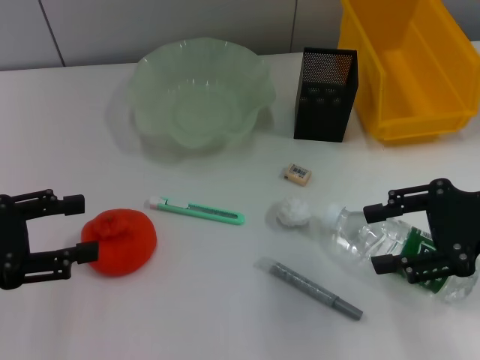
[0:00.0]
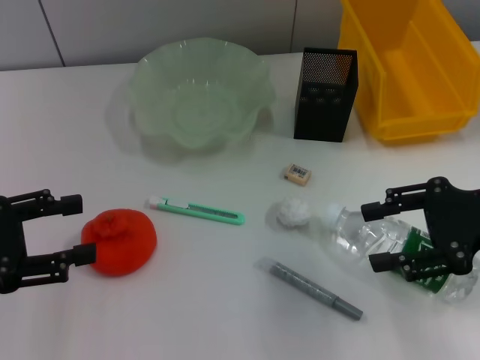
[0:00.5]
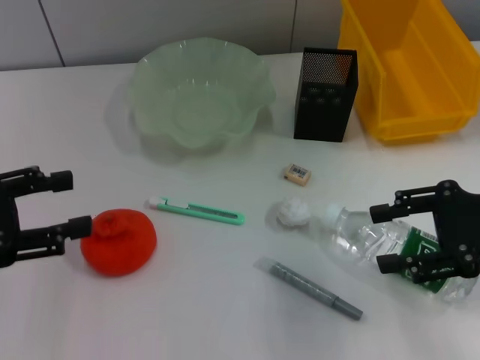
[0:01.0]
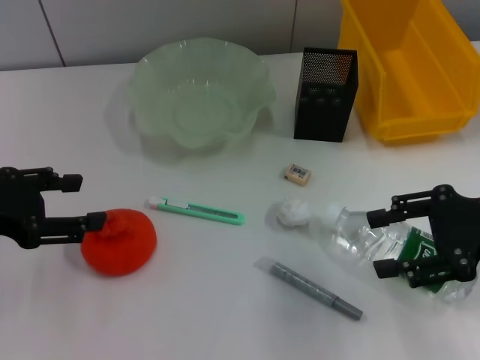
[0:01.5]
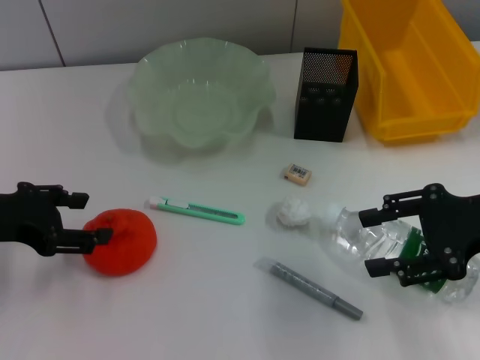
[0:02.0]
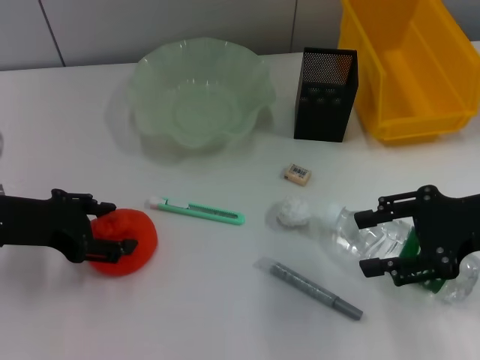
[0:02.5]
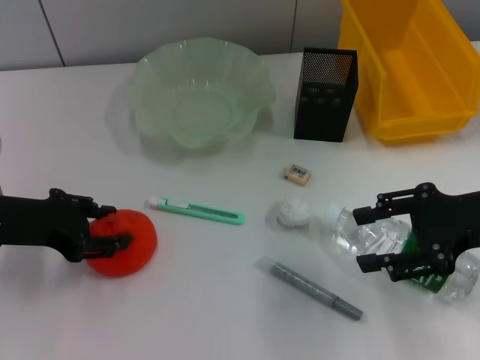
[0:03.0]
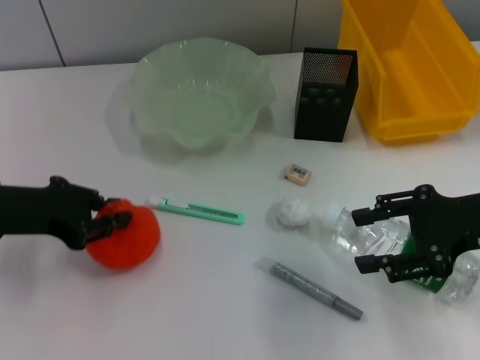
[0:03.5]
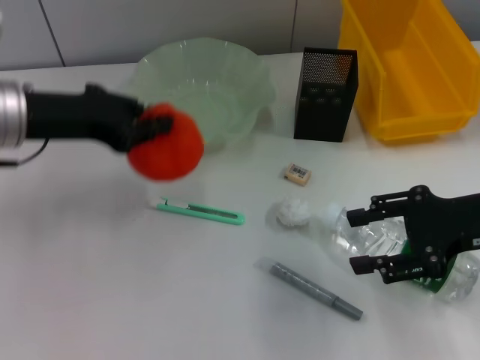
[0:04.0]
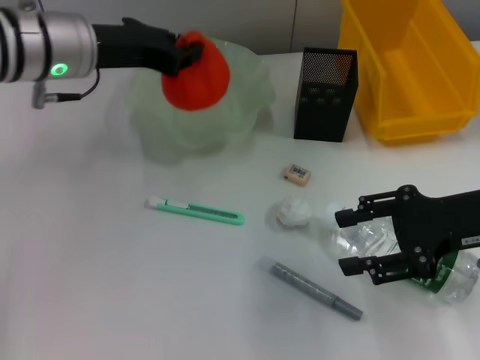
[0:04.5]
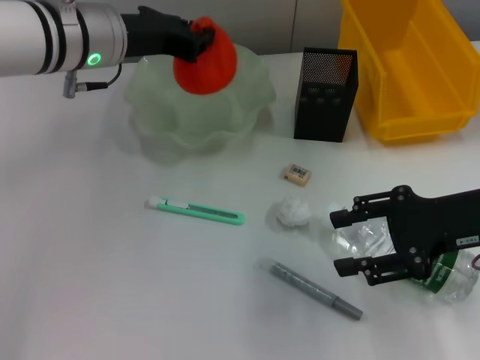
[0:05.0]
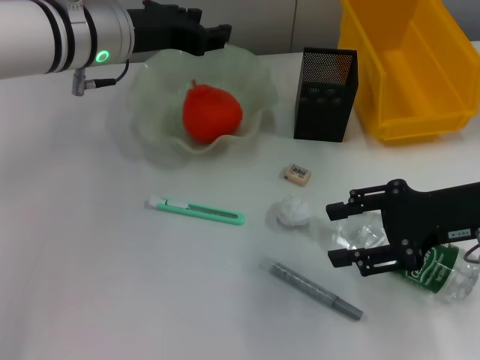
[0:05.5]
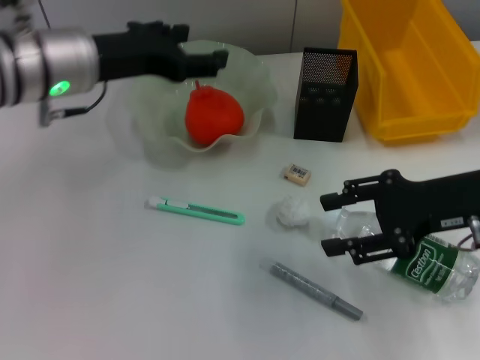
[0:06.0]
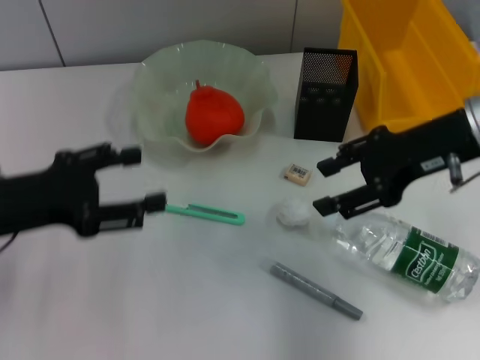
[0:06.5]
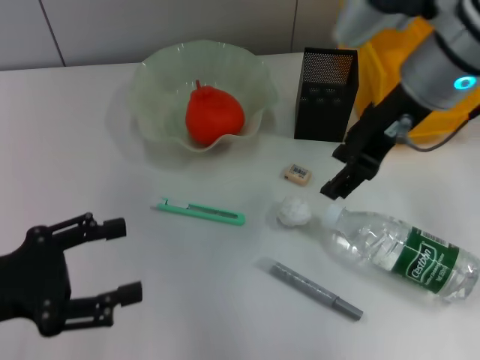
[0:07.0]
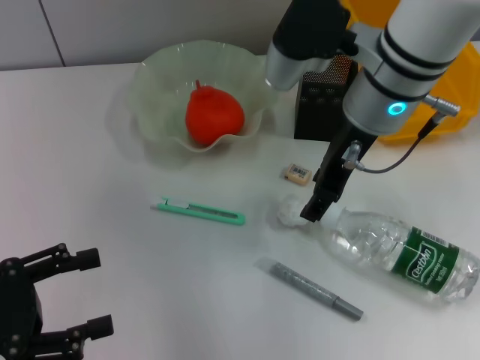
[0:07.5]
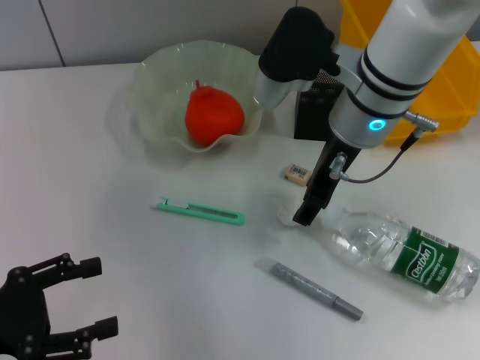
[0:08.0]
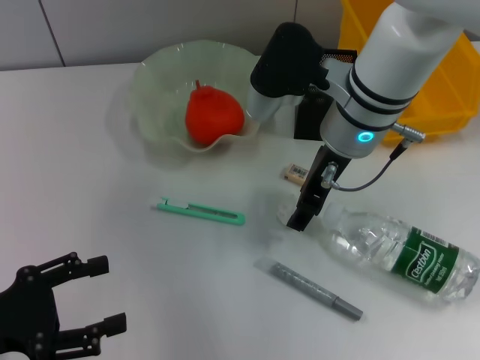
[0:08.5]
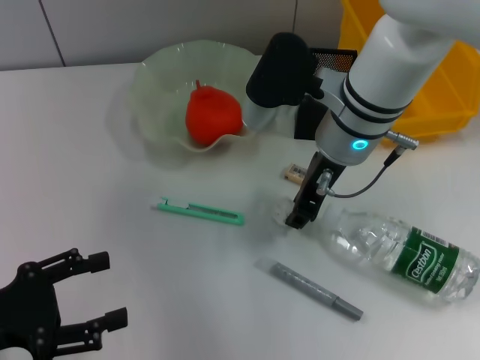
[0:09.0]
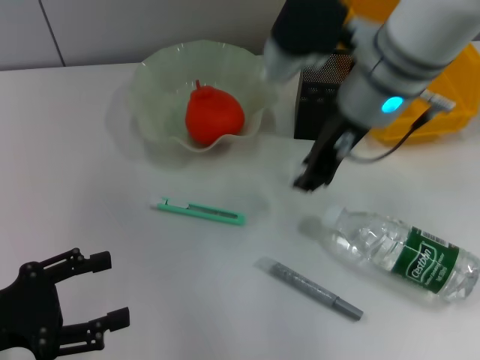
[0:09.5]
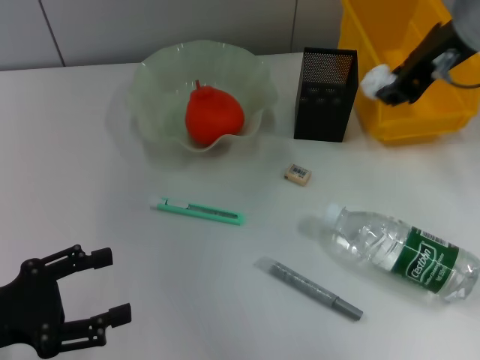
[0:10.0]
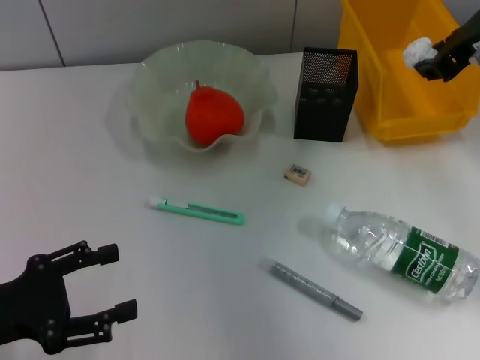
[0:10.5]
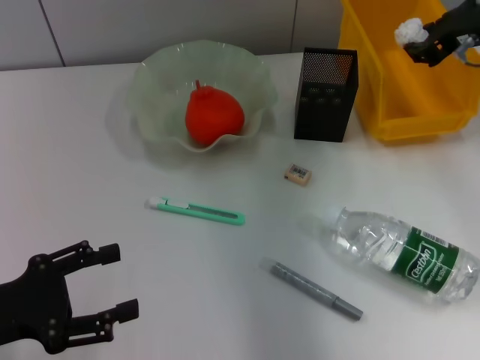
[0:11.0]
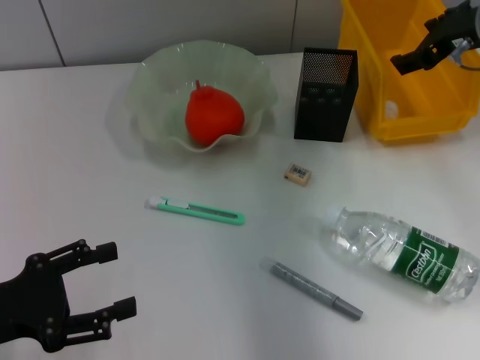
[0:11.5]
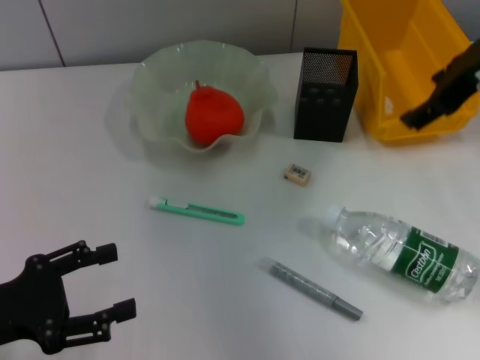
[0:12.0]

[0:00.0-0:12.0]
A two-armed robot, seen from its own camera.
Step, 0.0 to 3.0 s: Grab the orange with the left hand.
Step, 3.5 to 5.5 s: Place the orange into the fruit bowl with the left hand.
Step, 6.0 to 9.0 s: Grab the paper ball with the right hand.
Step, 9.5 to 11.5 s: Place the paper ball into the trash can with the right hand.
0.0 to 2.0 s: The left gripper ends up approximately 5 cm from where it was.
2.0 to 4.0 s: The left gripper shifts roughly 5 cm to the right, and closes.
4.0 to 6.0 s: The left gripper shifts some 5 cm to the right, and opens up.
6.0 to 8.0 s: The right gripper travels to the left and forward by some 20 cm. The left gripper travels backward, to the left and downward by about 25 cm.
8.0 to 10.0 s: The right gripper moves upward and to the right, approximately 10 cm, and closes up.
10.0 to 12.0 s: The right gripper opens its fingers.

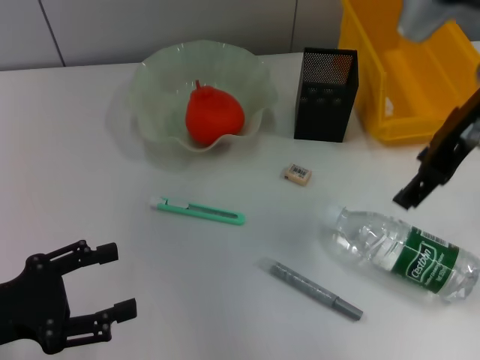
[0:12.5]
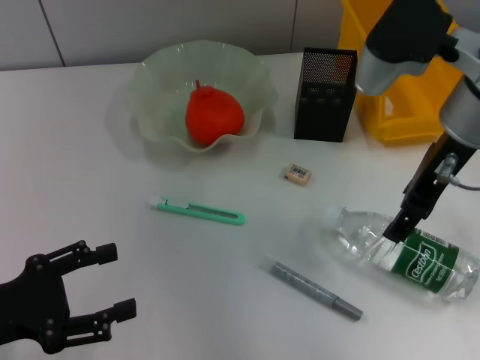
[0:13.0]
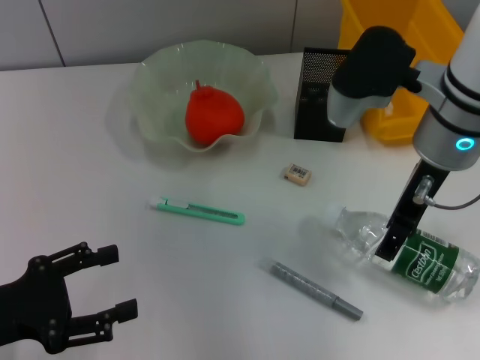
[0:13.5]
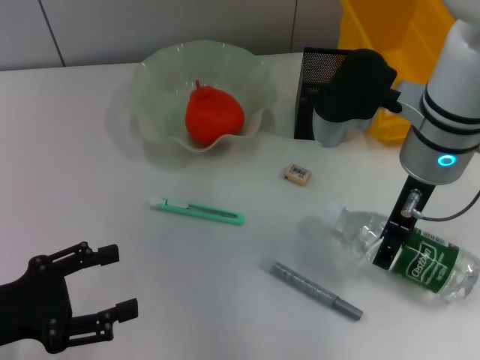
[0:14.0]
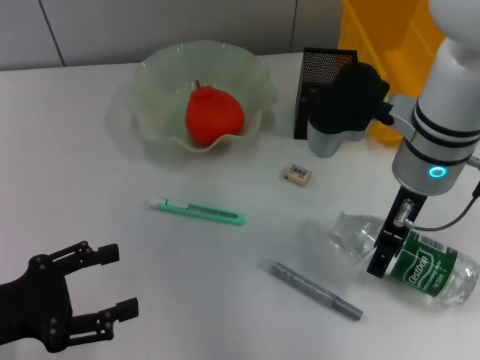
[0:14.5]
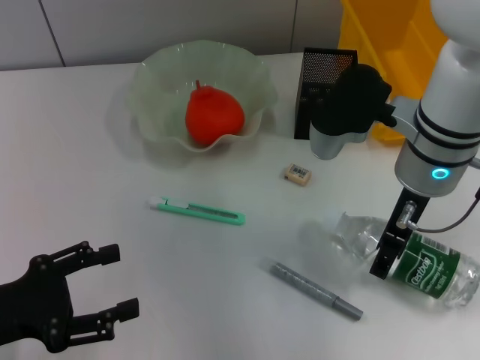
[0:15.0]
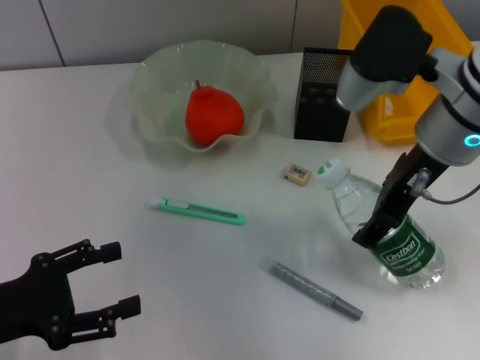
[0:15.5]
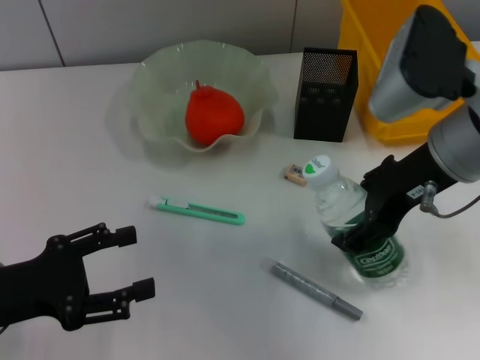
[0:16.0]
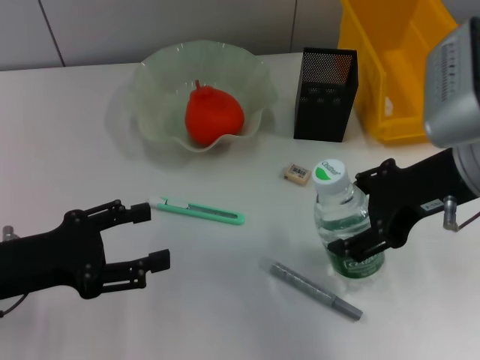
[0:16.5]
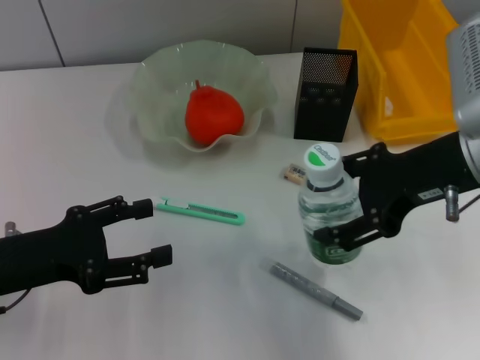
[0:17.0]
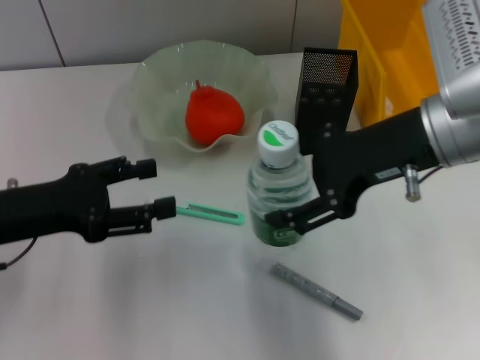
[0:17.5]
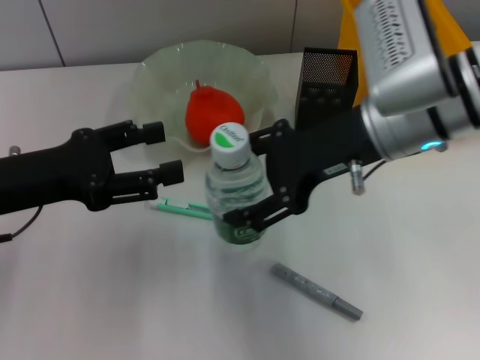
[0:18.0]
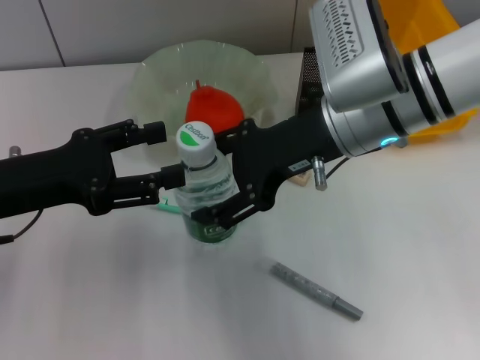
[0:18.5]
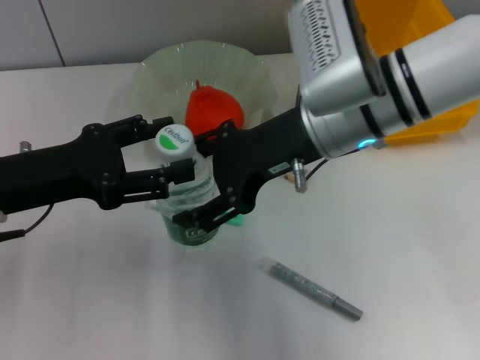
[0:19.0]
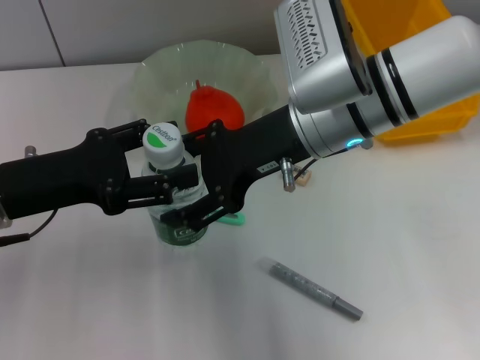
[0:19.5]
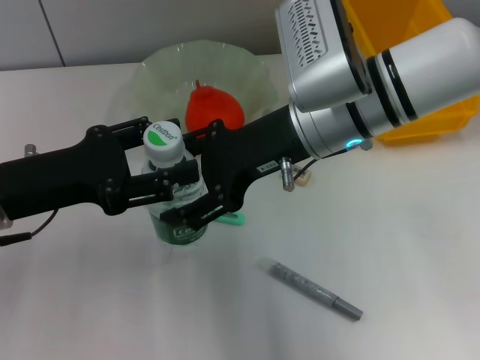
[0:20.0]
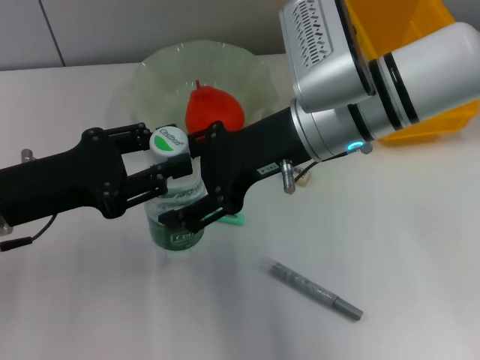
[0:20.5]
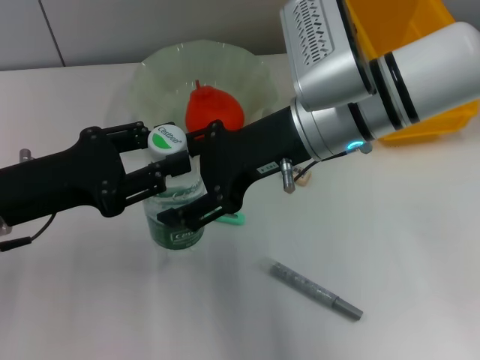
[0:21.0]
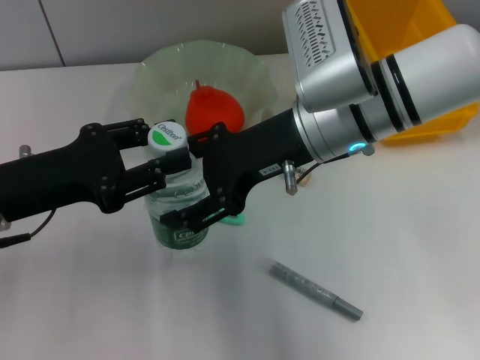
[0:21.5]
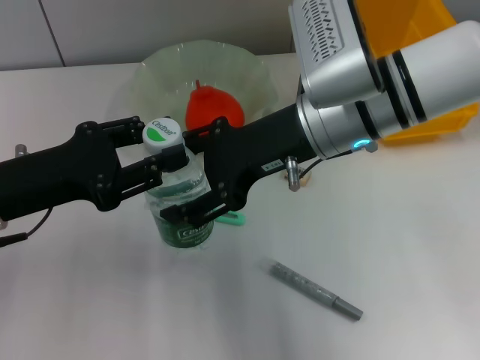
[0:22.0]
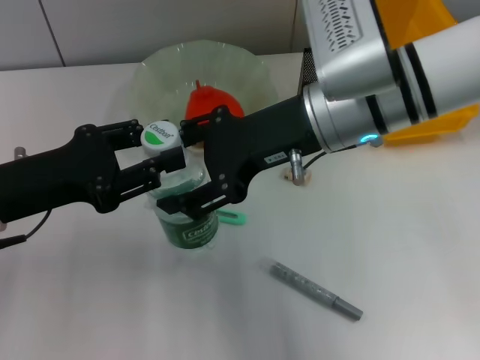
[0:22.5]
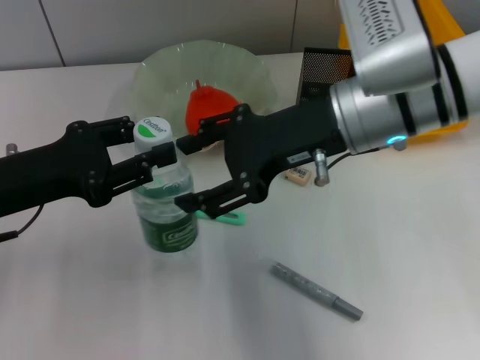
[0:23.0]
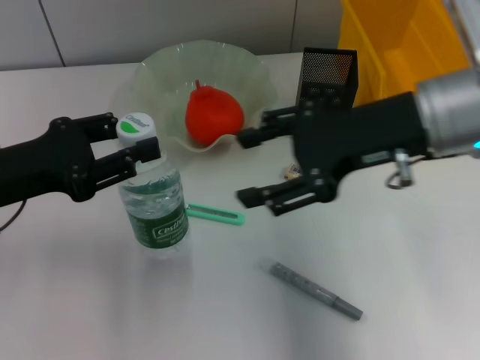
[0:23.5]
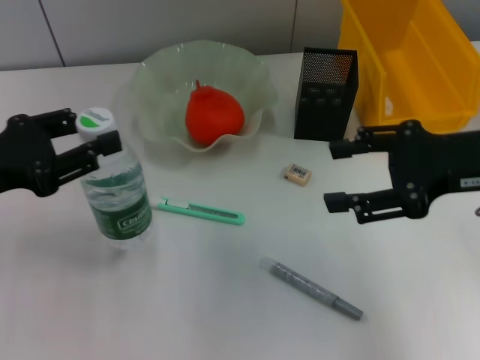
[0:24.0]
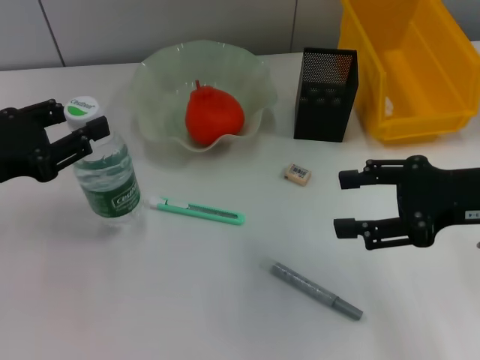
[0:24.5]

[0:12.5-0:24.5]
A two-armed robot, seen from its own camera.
Step, 12.5 to 14.5 s: Grab the water bottle with the right hand.
Step, 15.0 to 23.5 s: Pass the water bottle from the right hand to the left hand.
12.5 to 14.5 s: The right gripper moves downward and to the left, some 10 cm.
14.5 to 16.5 s: The left gripper ends up some 5 cm from where it was. Meanwhile the right gripper moves to the right, approximately 5 cm.
16.5 to 18.5 s: The left gripper shifts approximately 5 cm upward. The right gripper is displaced to the left and forward by approximately 10 cm.
18.5 to 20.5 s: The left gripper closes up.
20.5 to 22.5 s: The grippers move only a little.
22.5 to 24.5 s: The right gripper shifts roughly 20 cm to the right and backward.

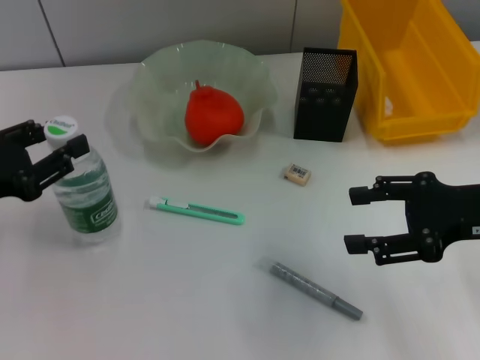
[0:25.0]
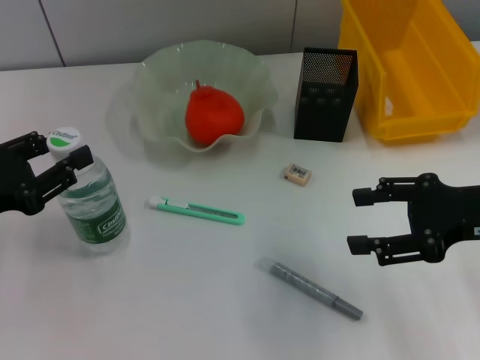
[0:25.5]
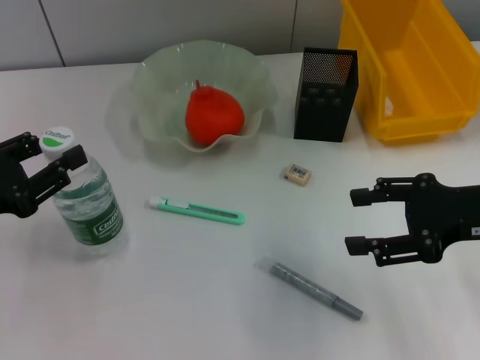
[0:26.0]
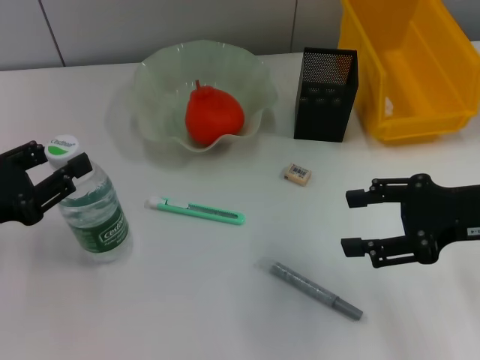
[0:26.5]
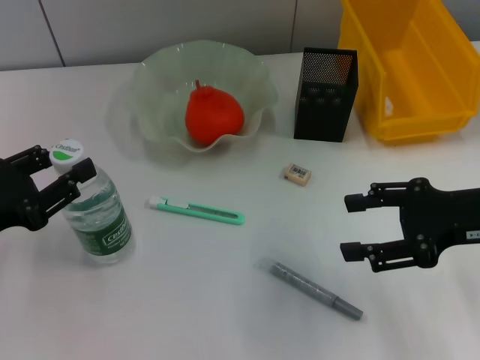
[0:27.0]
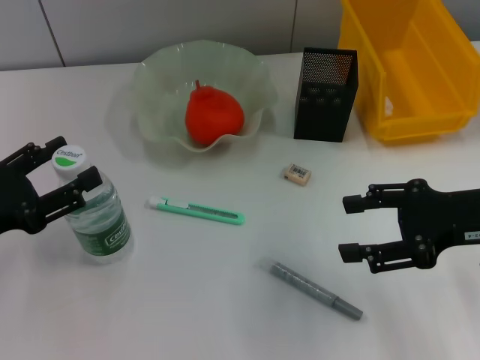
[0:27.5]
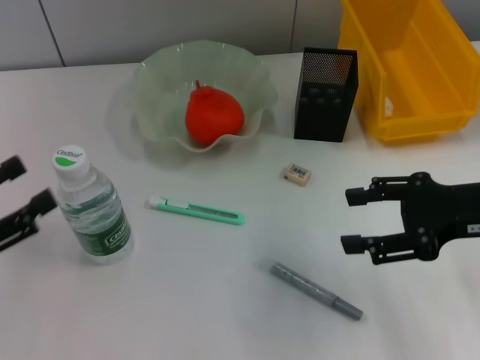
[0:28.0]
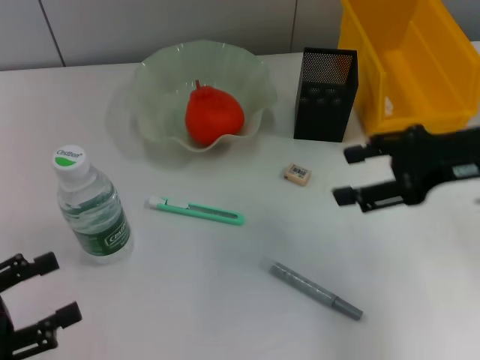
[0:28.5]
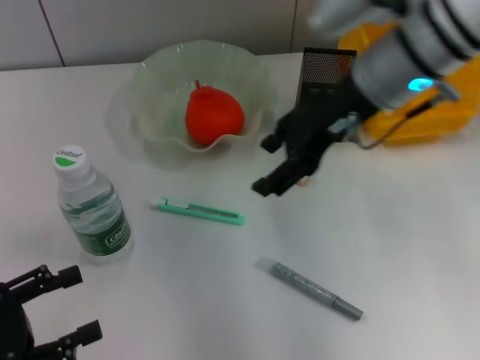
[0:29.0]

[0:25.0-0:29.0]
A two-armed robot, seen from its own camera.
Step, 25.0 to 27.5 s: Place the water bottle on the table with the left hand.
25.0 to 27.0 s: The grippers make only small movements.
27.0 to 29.0 s: The left gripper heads backward, covering some 10 cm, and opens, while the right gripper shifts about 20 cm to the left, forward and upward.
